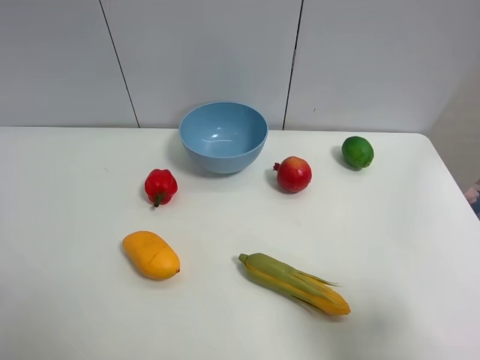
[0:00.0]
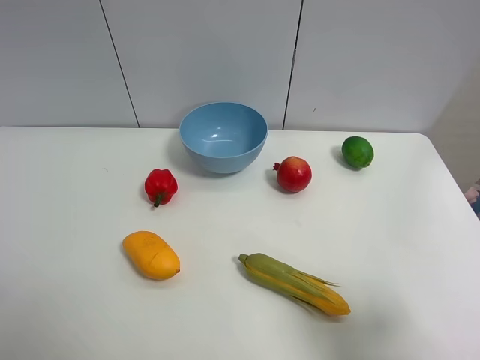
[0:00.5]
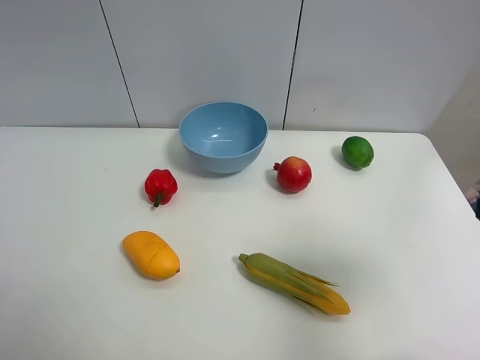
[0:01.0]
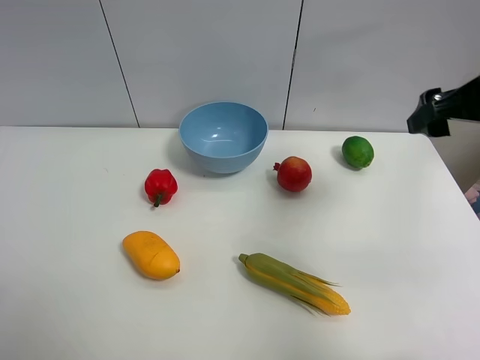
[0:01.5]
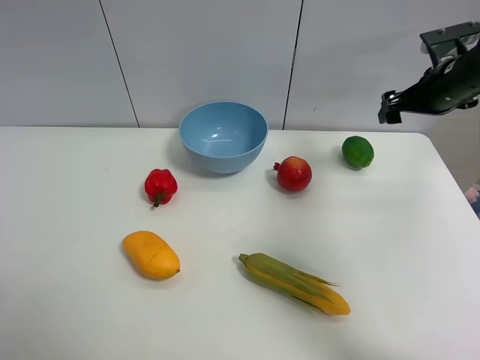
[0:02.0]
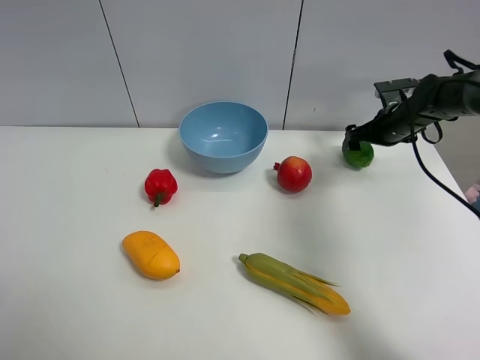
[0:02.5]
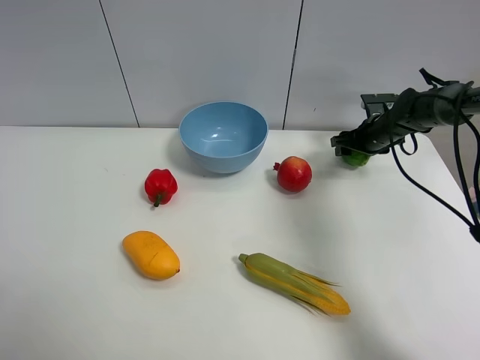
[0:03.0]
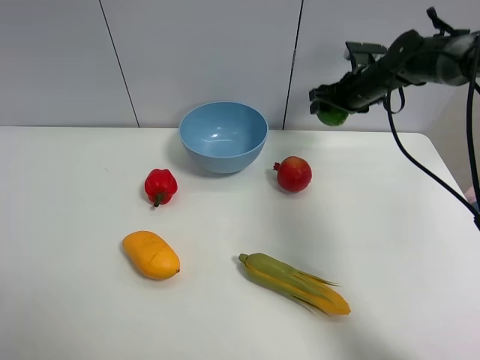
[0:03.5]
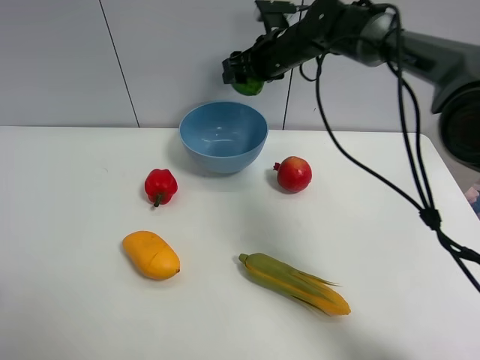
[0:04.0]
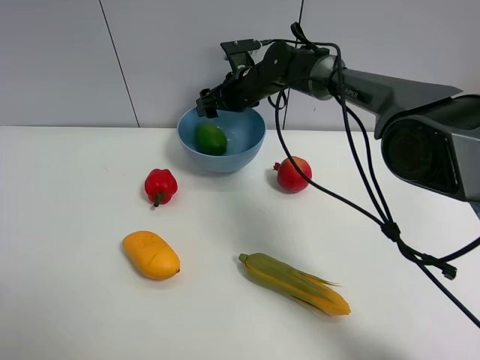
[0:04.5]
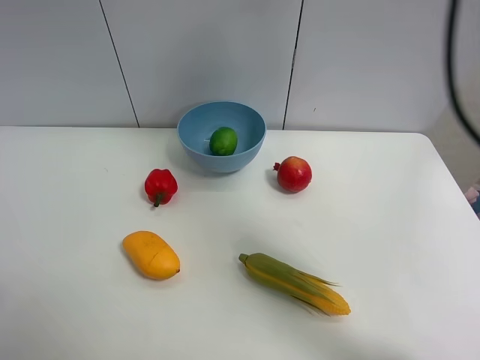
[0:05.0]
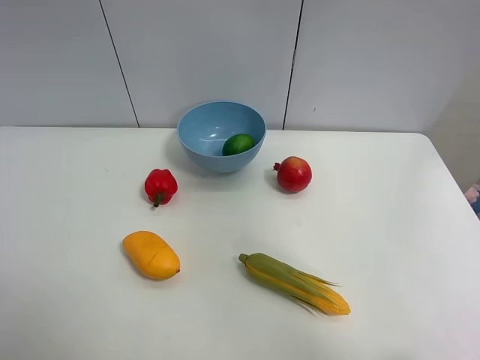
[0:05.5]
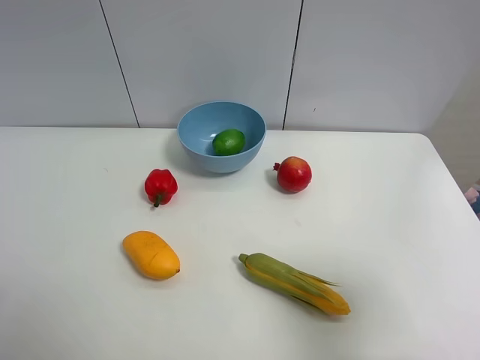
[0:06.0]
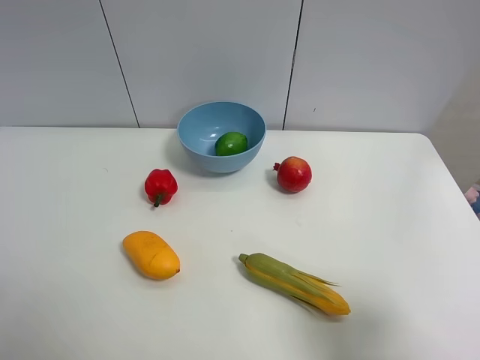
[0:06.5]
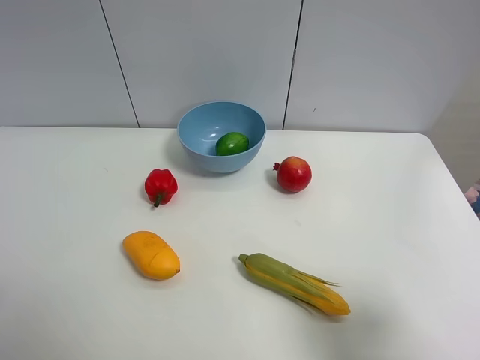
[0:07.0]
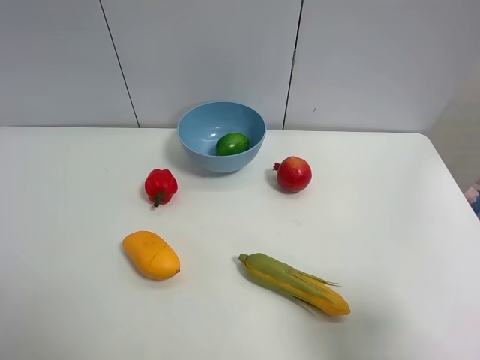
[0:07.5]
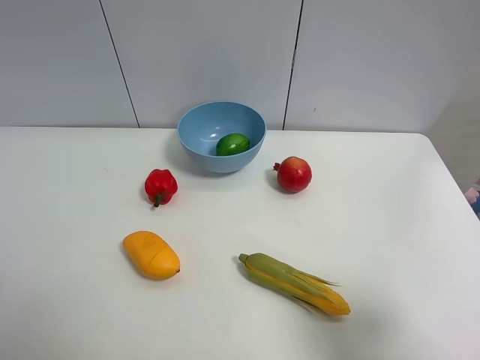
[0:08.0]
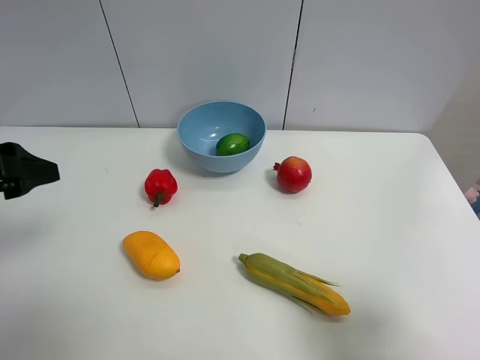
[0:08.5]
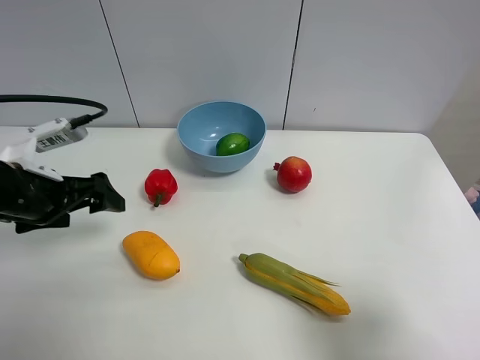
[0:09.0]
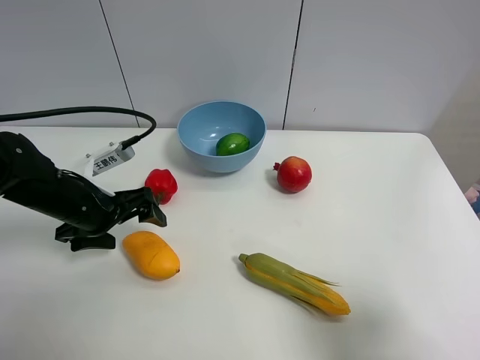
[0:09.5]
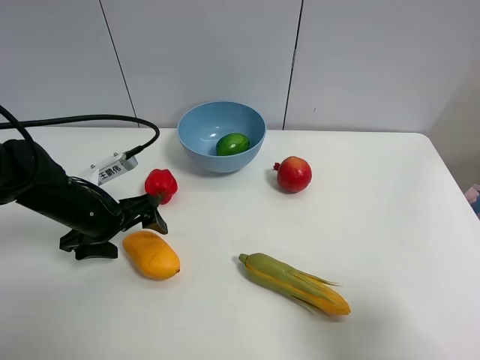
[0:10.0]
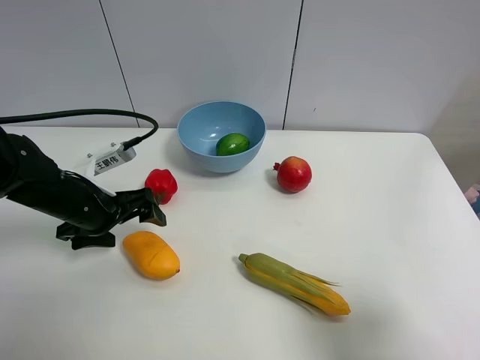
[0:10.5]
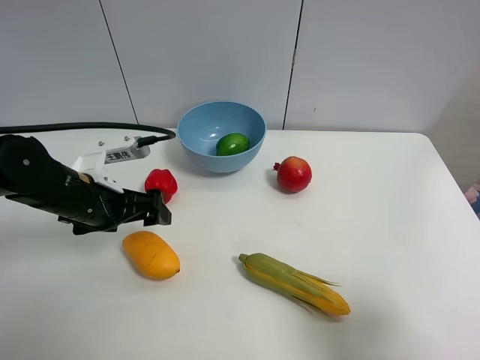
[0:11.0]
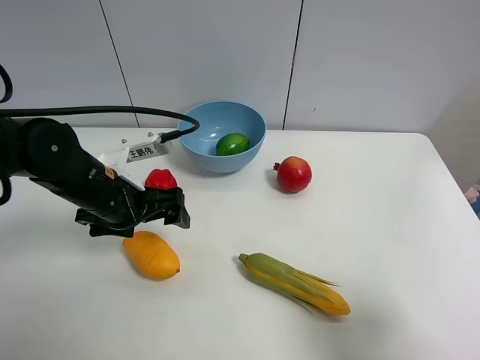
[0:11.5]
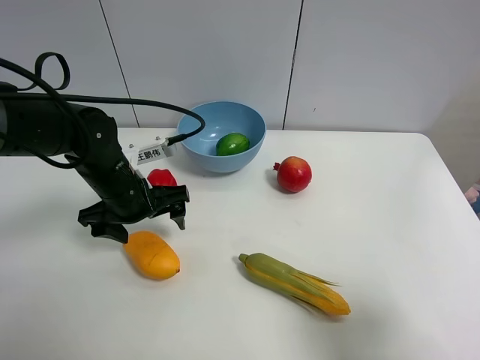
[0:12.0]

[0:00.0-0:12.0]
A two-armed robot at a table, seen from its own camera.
Task of the whole recording: Put the three fruits on the table into a bowl.
Step, 0:00.0 to 0:02.5: Grasp the green lemon with right gripper.
Step, 0:03.0 to 0:04.0: Place the green lemon in the blue bowl with right gripper.
0:00.0 to 0:02.0: The right gripper heads forward, covering about 40 cm.
0:02.0 to 0:04.0: The right gripper moves to the left, roughly 25 cm, and closes up.
0:04.0 to 0:06.0: The right gripper goes about 50 cm backward and to the right, and opens up.
0:06.0 to 0:08.0: The right gripper is displaced downward by about 5 cm.
0:08.0 to 0:10.0: The left gripper is displaced forward and downward by roughly 30 cm.
0:10.0 to 0:12.0: The left gripper is displaced to the right by about 5 cm.

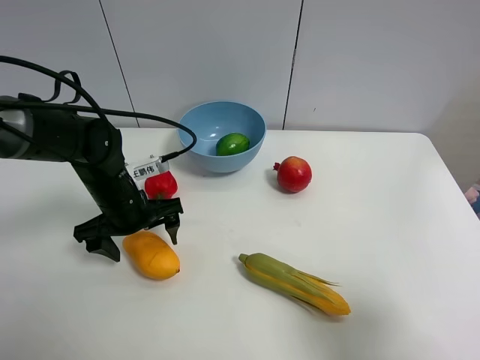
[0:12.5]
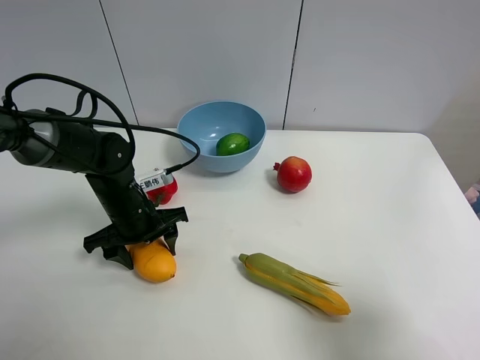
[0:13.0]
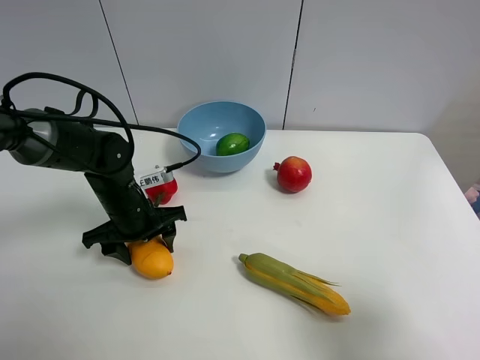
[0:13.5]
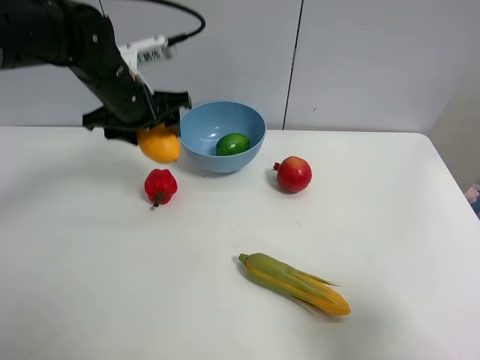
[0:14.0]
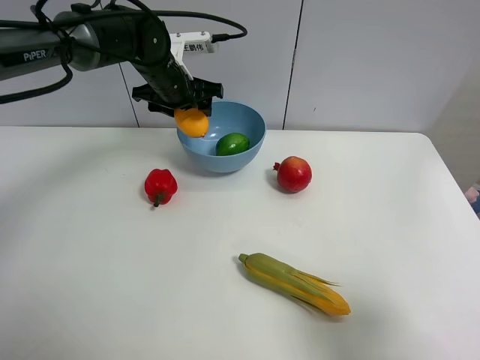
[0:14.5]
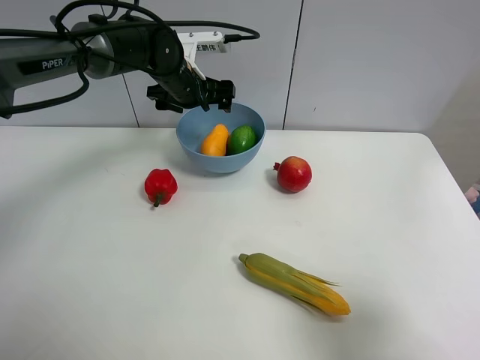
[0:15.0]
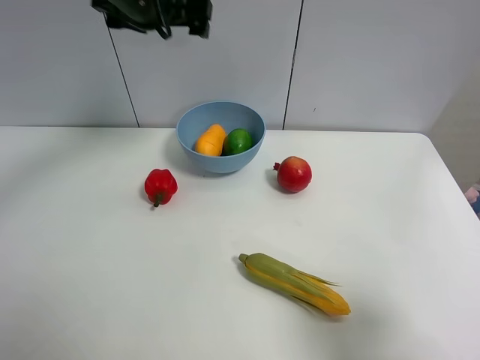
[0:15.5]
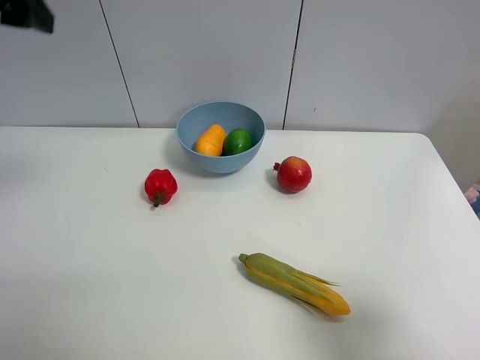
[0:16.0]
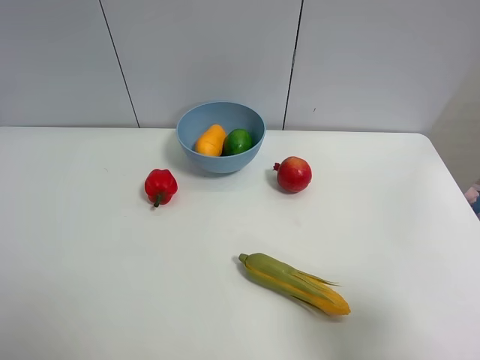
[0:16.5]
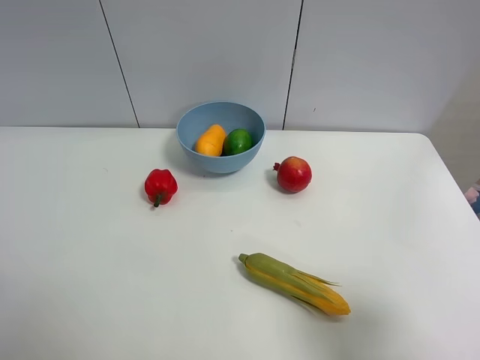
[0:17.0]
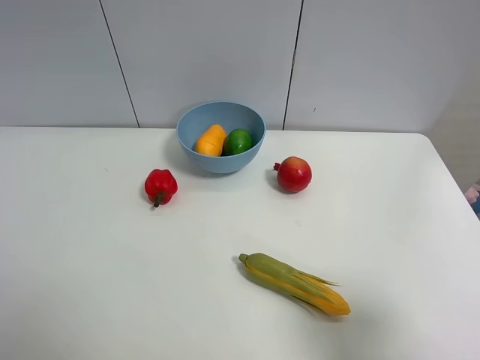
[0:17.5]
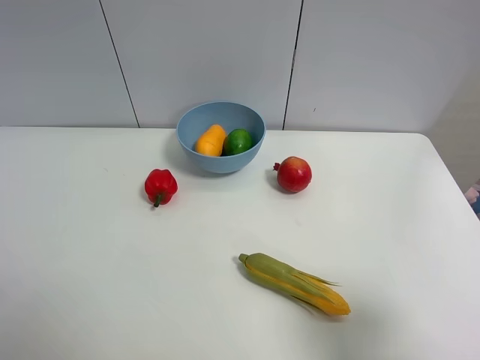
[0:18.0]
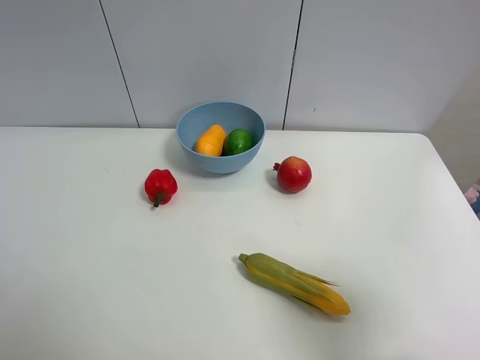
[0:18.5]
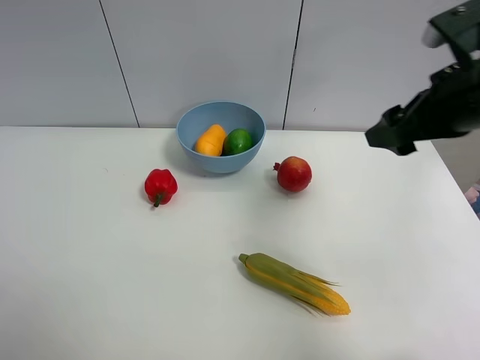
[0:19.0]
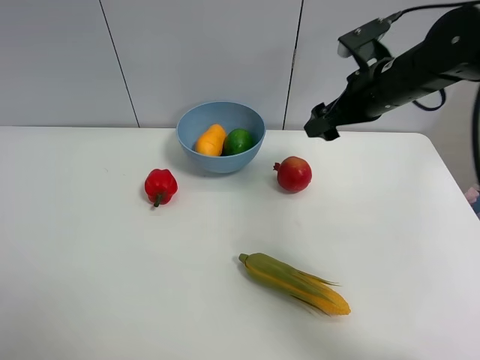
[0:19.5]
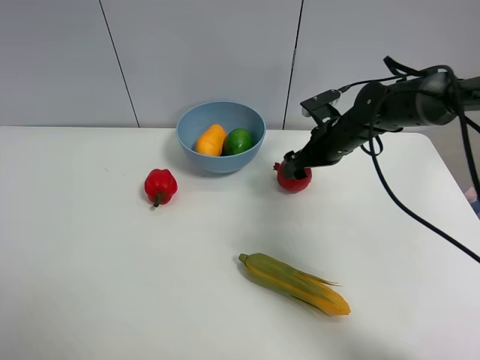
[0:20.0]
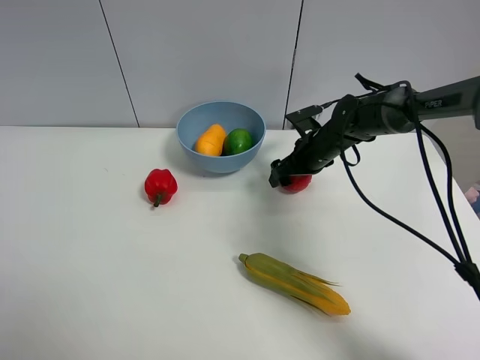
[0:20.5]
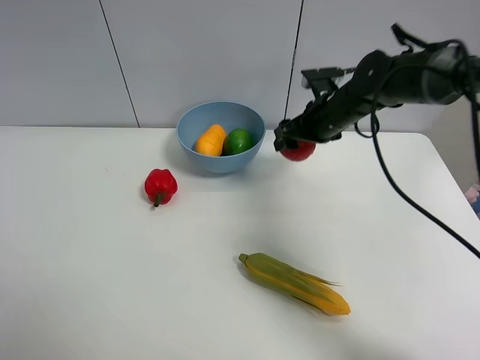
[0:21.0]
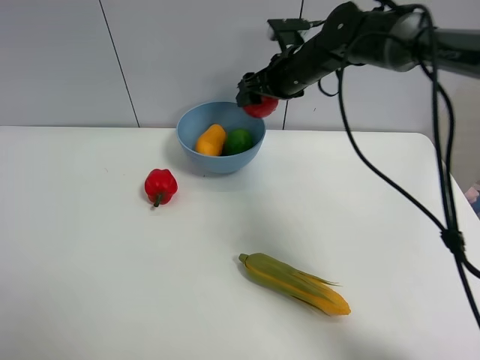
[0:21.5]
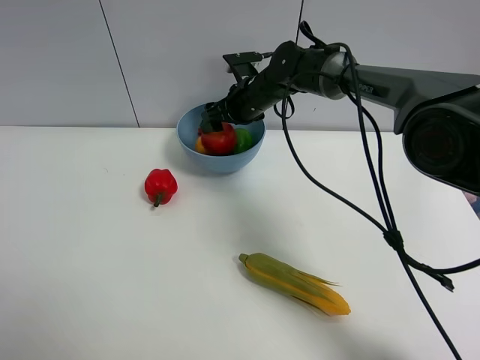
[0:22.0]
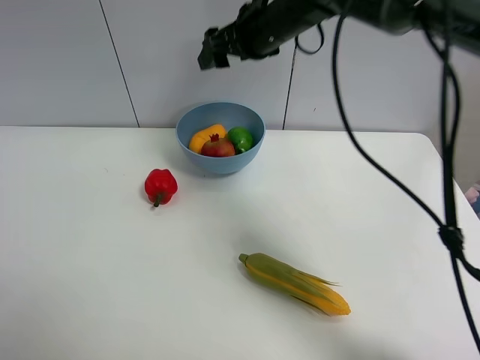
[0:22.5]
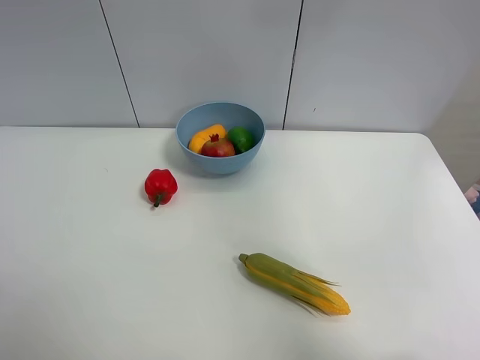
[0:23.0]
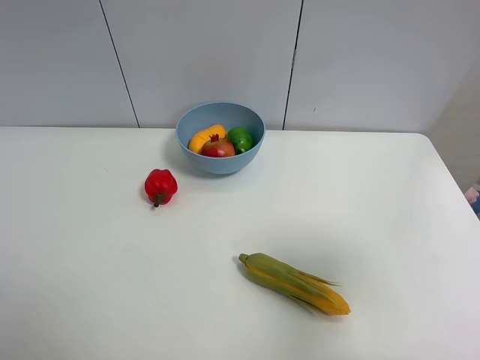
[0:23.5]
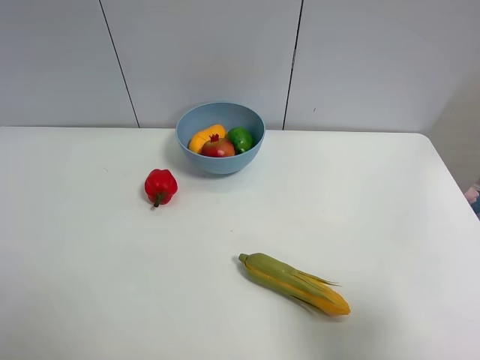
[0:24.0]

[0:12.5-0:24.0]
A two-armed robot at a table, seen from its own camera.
Task of the whole recording: Put the three fruits on the table into a bowl.
Step, 0:13.5 to 0:14.5: Place the mango in the blue bowl with left gripper.
Step, 0:15.0 to 0:20.5: Grasp the pomegranate with right gripper.
Step, 0:21.0 to 0:22.0: Place the pomegranate in the blue bowl with right gripper.
0:12.5 to 0:14.5: The left gripper heads forward and upward, covering about 20 cm, and closes its fingers.
0:14.5 to 0:16.5: The left gripper travels backward and to the left by approximately 50 cm, and opens up.
0:18.5 to 0:20.0: The right gripper travels forward and downward by approximately 40 cm, and opens its fingers.
0:20.0 to 0:22.0: The right gripper travels to the left and forward by about 15 cm, and closes its fingers.
0:22.0 to 0:24.0: The right gripper goes about 50 cm backward and to the right.
